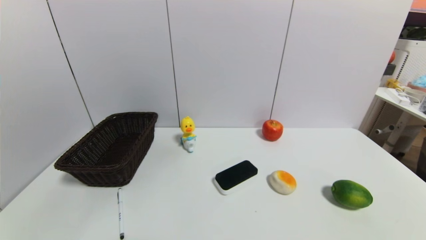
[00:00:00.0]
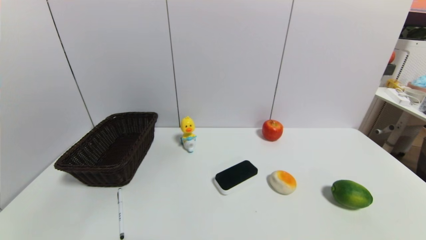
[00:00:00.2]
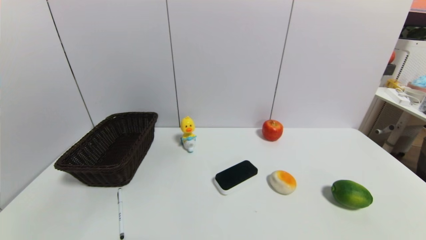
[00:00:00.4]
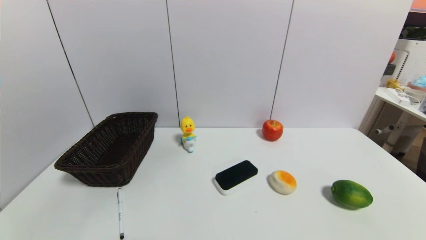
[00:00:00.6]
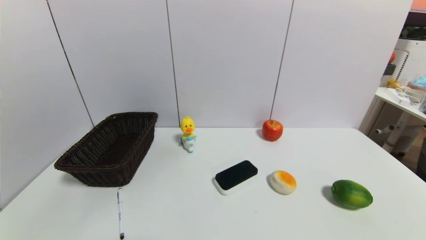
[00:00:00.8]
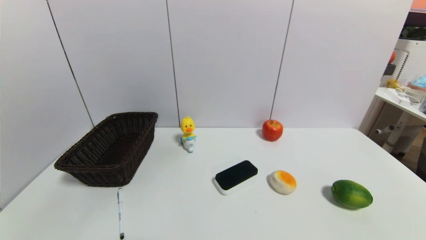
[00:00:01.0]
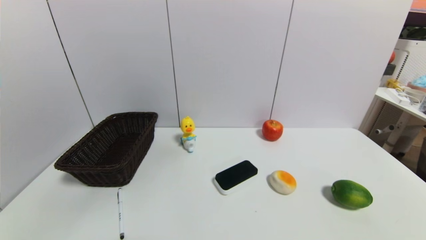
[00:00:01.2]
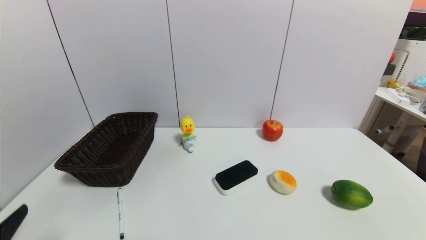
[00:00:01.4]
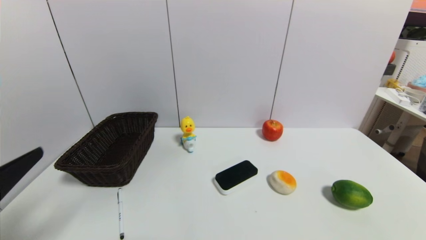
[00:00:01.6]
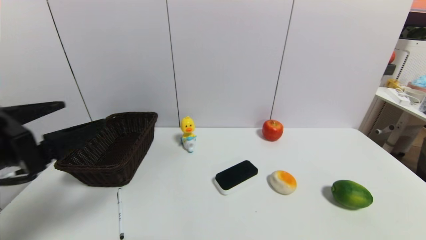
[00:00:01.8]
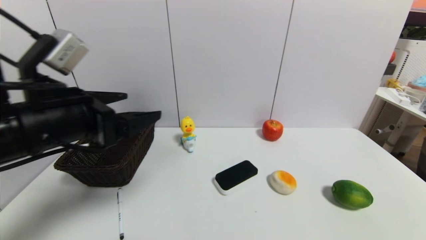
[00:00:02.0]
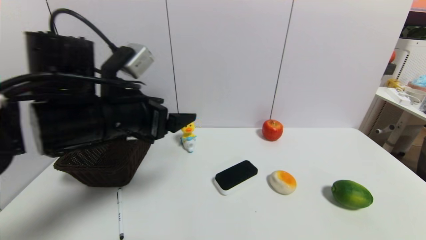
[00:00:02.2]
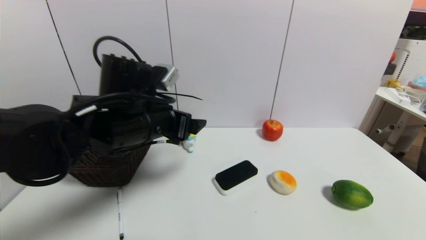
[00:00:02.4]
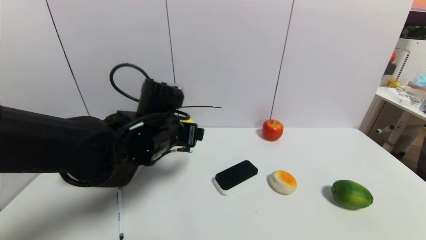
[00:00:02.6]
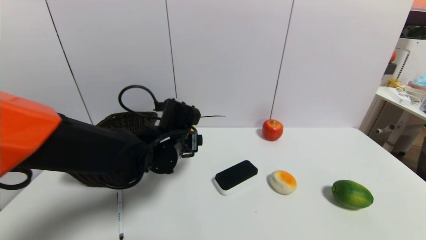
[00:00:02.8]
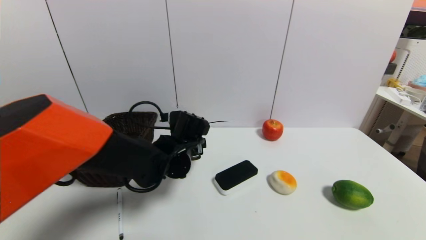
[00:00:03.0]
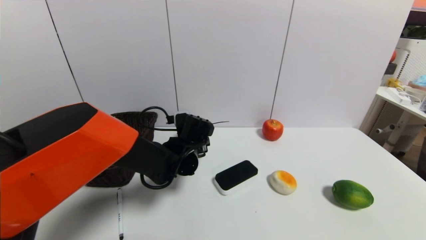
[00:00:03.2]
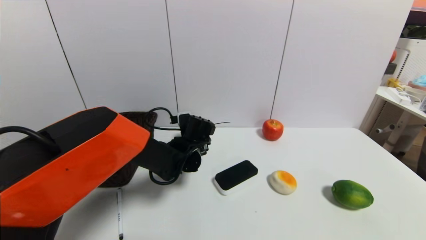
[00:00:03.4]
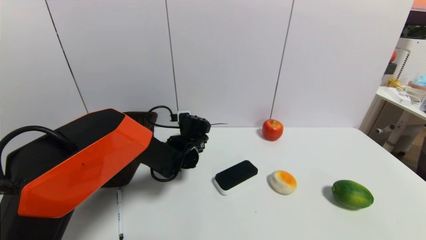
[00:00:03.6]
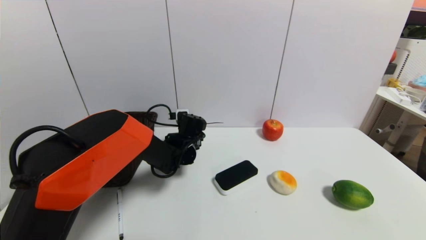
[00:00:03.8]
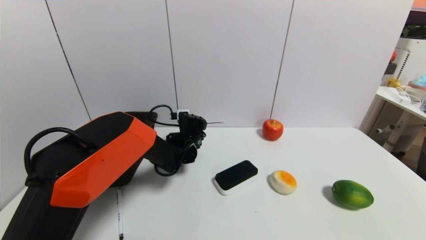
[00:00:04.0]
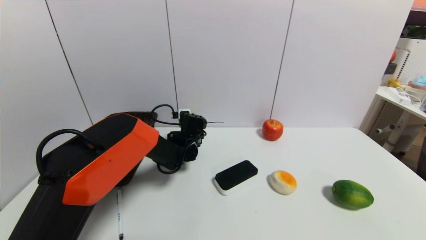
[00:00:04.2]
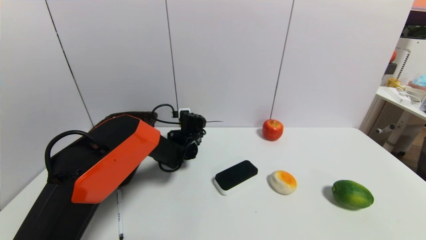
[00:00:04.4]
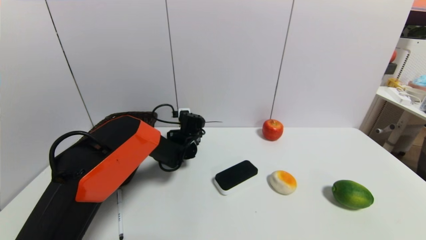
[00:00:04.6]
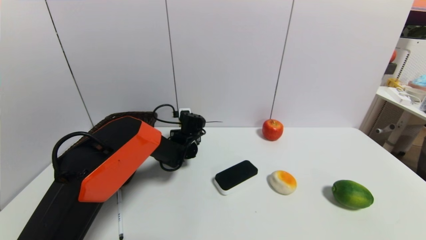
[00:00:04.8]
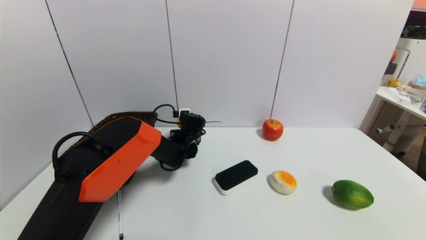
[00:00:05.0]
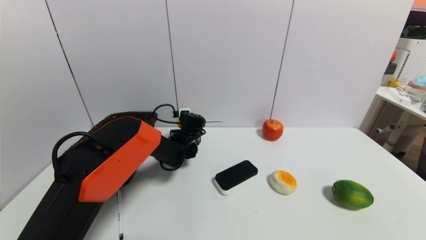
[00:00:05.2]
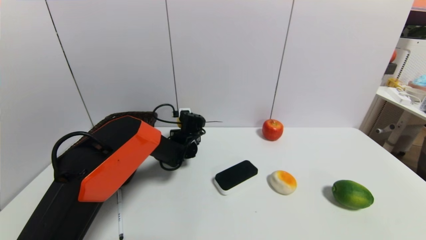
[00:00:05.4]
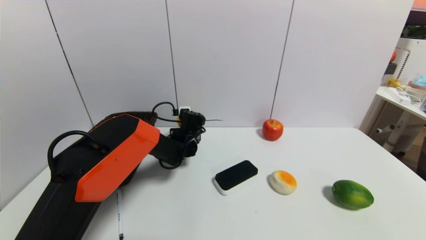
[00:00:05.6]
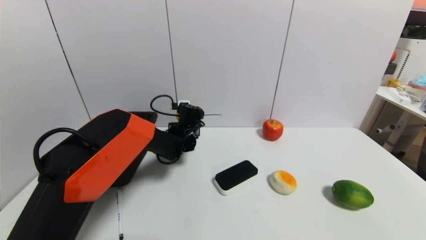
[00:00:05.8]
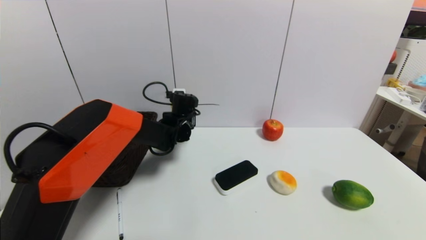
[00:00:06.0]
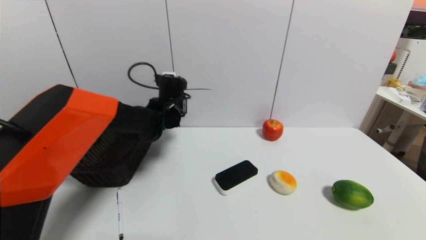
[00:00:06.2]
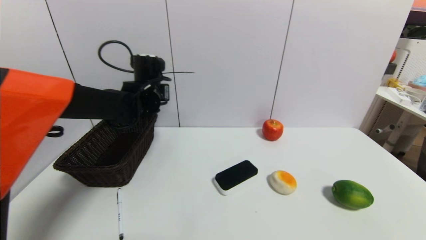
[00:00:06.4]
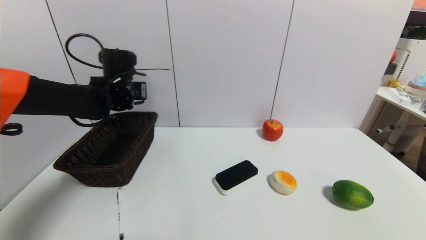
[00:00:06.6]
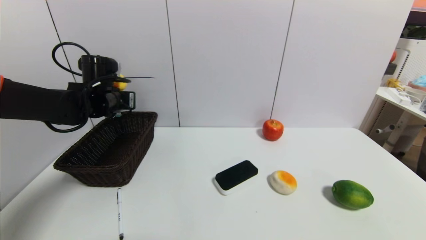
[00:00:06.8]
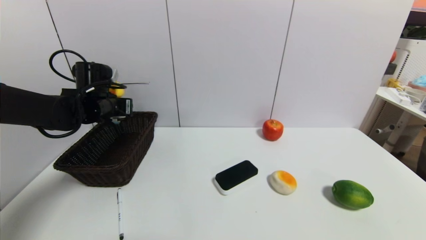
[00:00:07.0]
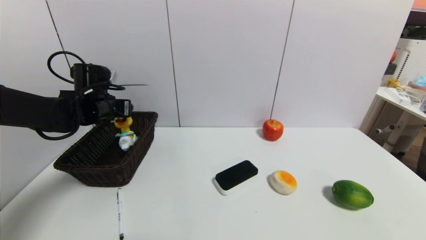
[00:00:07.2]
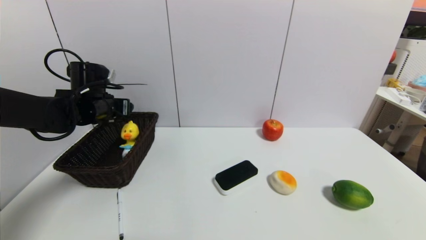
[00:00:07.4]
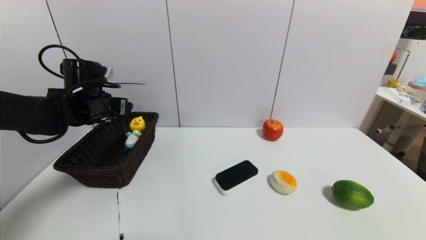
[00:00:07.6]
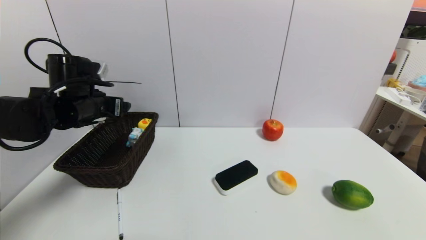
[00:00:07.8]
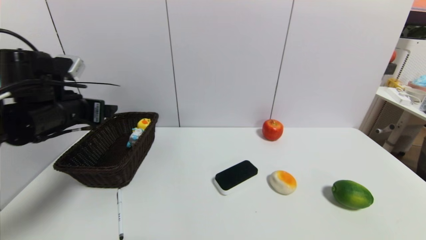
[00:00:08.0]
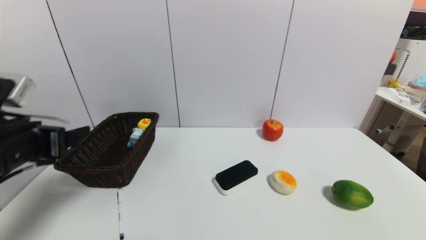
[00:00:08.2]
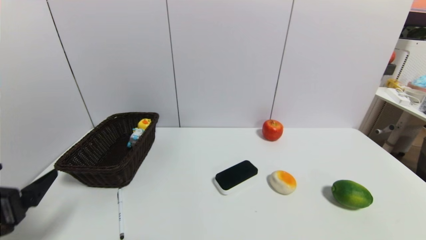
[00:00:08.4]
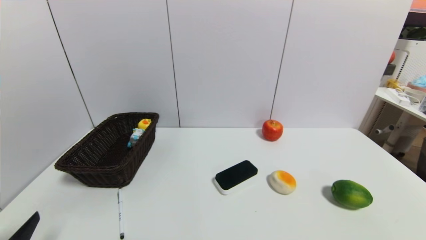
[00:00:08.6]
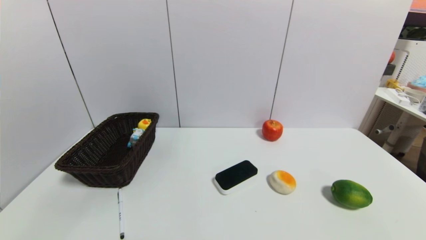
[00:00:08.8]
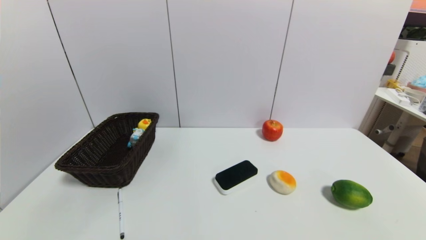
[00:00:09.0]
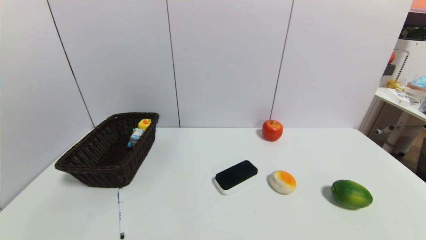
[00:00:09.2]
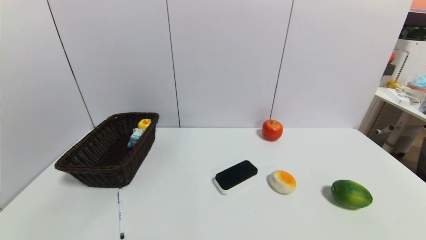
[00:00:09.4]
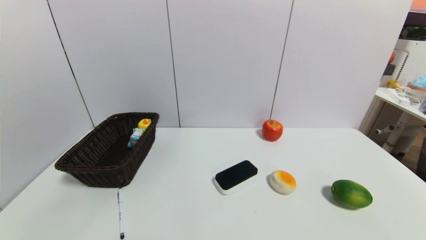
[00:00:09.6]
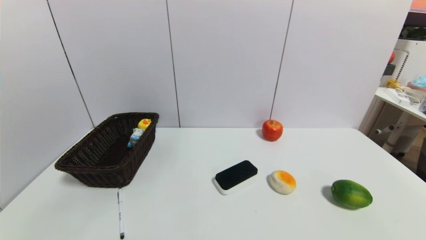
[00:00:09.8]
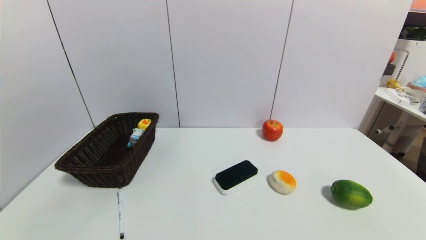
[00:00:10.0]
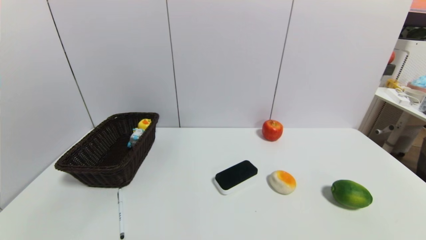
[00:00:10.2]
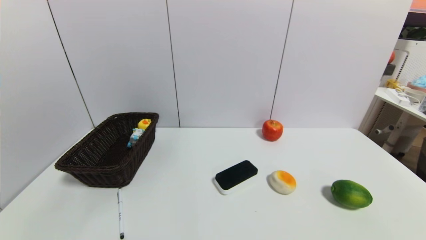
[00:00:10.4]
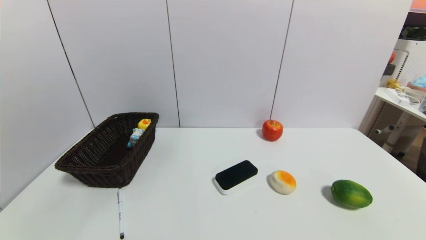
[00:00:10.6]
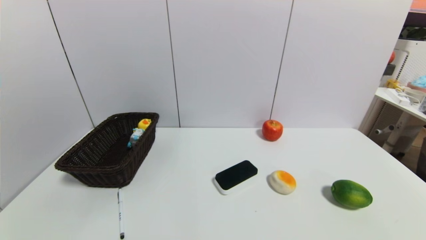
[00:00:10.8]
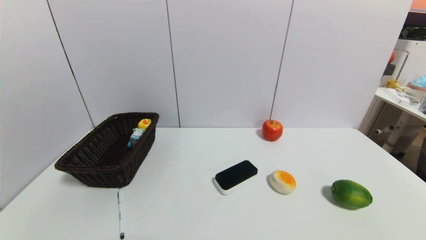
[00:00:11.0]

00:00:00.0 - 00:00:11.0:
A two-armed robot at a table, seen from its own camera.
Task of the whole recording: use a gripper to pick the target object and place on the brown basket.
Step, 00:00:00.0 - 00:00:05.2: Grasp the duck toy with the left gripper.
Step, 00:00:05.4 - 00:00:07.6: Place the duck toy into the basket with the left gripper.
00:00:00.0 - 00:00:01.6: The left gripper goes some 20 cm upward and forward.
00:00:01.6 - 00:00:03.2: The left gripper moves forward, to the right and downward, some 40 cm.
00:00:03.2 - 00:00:04.8: The left gripper travels forward and downward by roughly 10 cm, and closes up.
00:00:04.8 - 00:00:06.2: The left gripper shifts some 10 cm upward, and closes its fingers.
00:00:06.2 - 00:00:07.8: The left gripper shifts approximately 20 cm to the left and backward, and opens up.
00:00:07.8 - 00:00:09.4: The left gripper is displaced backward and downward by about 40 cm.
